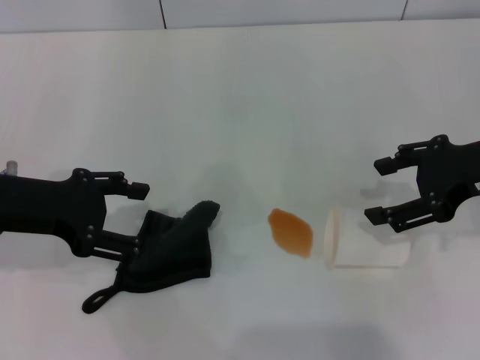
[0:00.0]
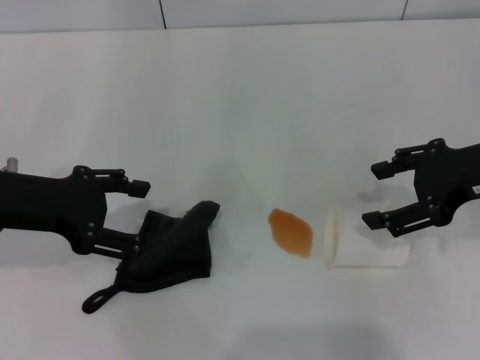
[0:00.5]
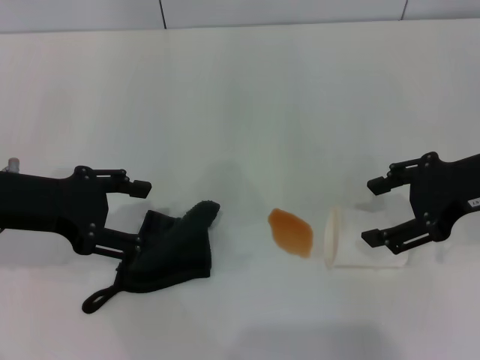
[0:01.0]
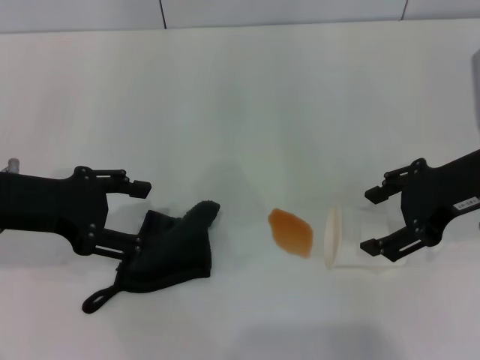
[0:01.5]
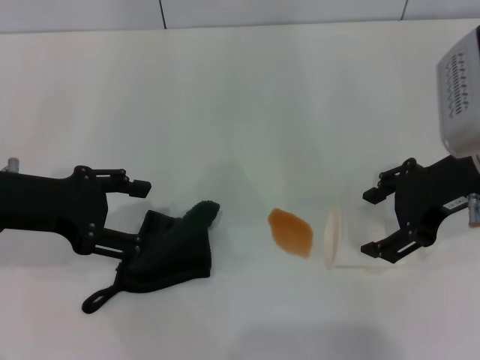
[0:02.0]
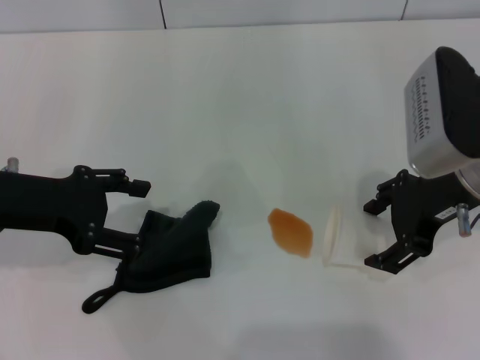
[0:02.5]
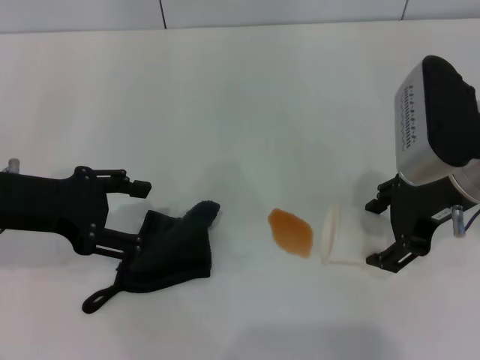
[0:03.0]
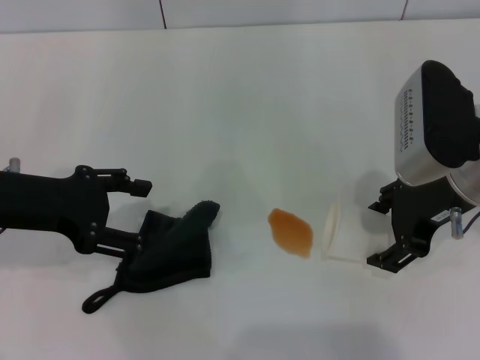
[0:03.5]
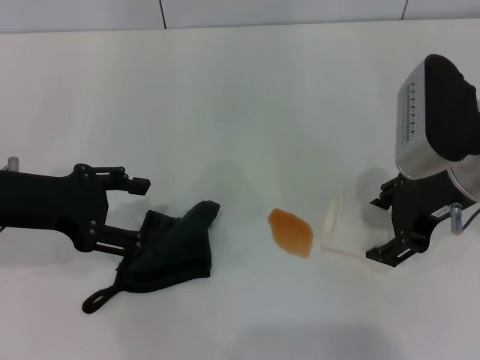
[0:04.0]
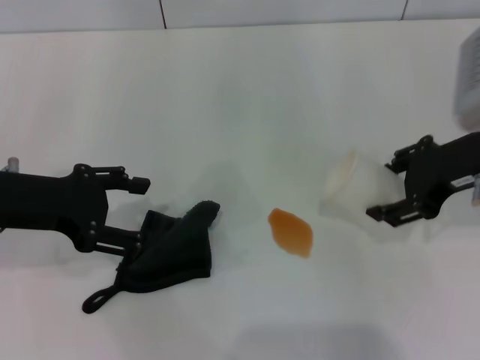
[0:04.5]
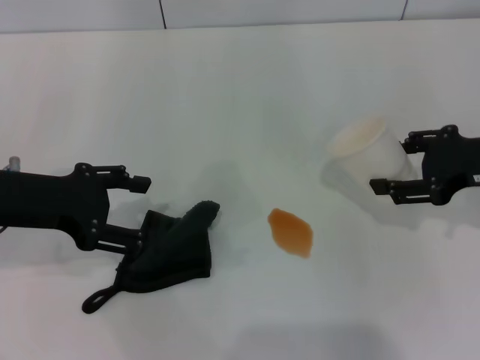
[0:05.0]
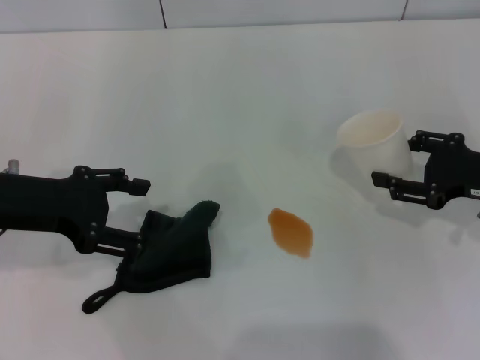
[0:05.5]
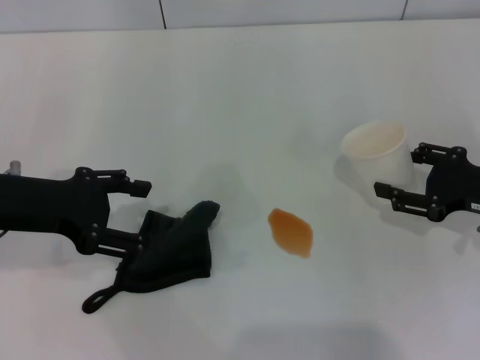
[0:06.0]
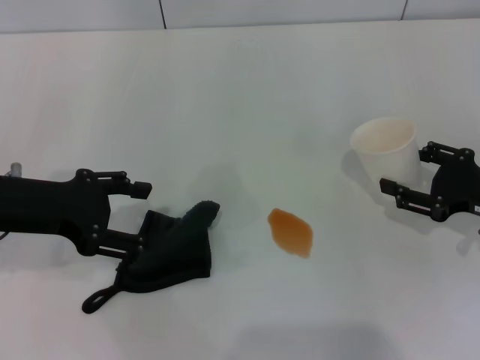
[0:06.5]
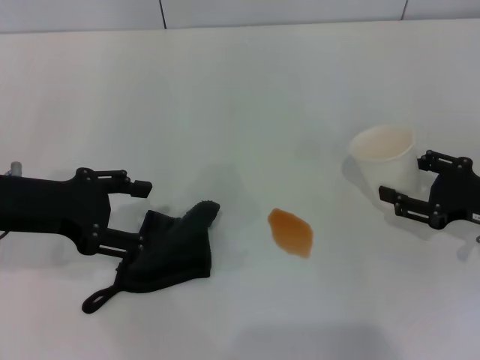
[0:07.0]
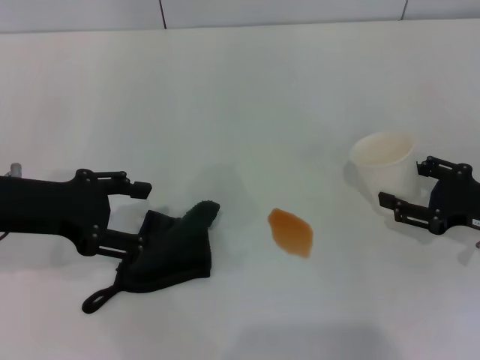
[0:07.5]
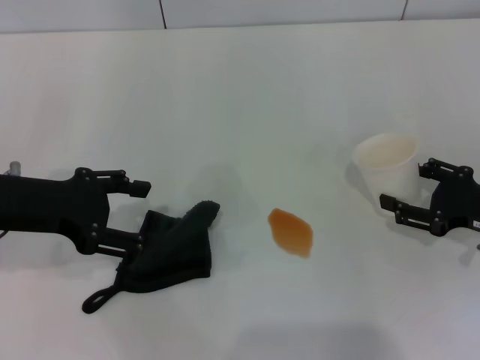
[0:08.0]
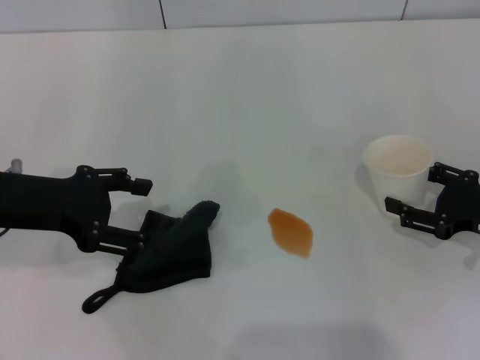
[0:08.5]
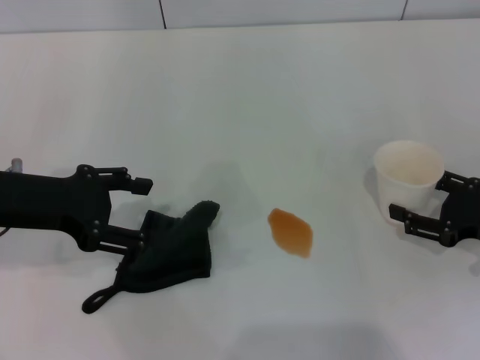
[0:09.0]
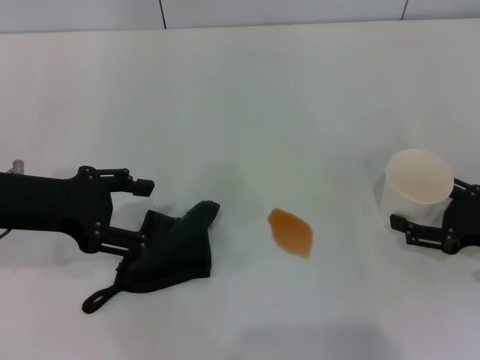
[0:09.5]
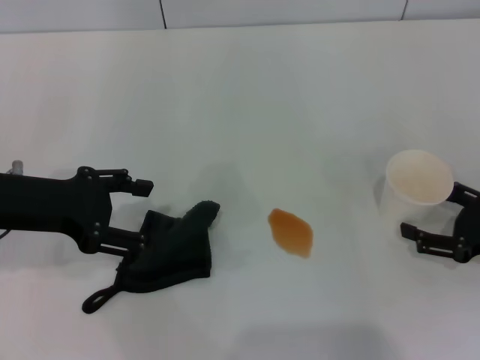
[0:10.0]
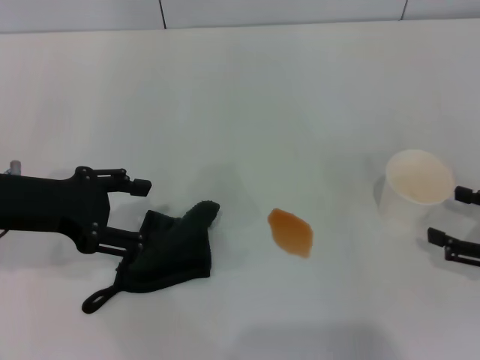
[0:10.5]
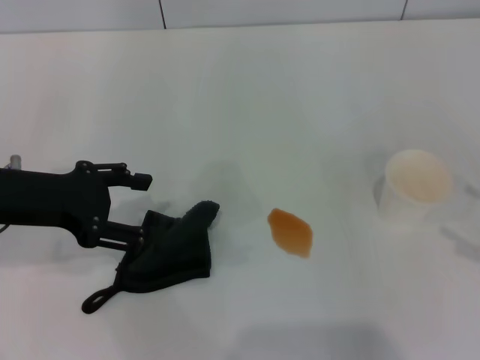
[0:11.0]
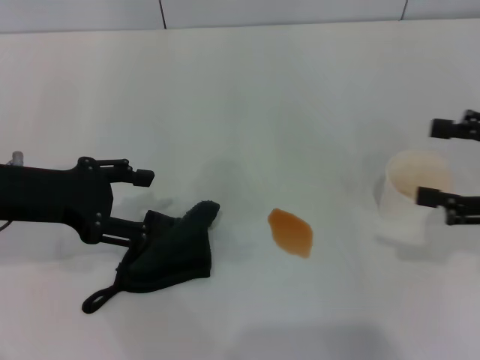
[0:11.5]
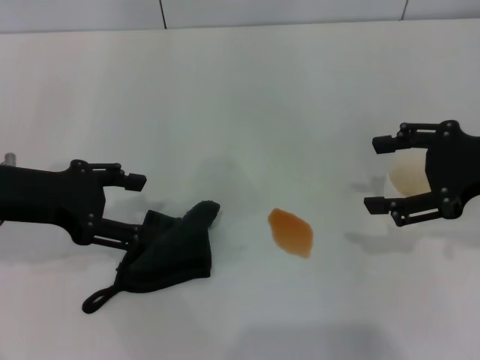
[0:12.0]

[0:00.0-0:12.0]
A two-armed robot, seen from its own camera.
Step, 0:00.0 to 0:04.0: Grasp the paper cup with the right gripper.
Step, 0:04.5 to 0:09.5: Stand the paper cup upright with the right gripper.
0:00.0 to 0:02.0: The right gripper heads to the left, covering approximately 5 cm.
0:02.0 to 0:04.0: The grippers make only small movements.
0:04.0 to 0:06.0: The right gripper travels to the right and downward by about 15 cm, and closes up.
0:06.0 to 0:08.0: The grippers stay close to where they were, moving slightly.
0:08.0 to 0:10.0: The right gripper opens.
0:10.0 to 0:12.0: The right gripper is displaced upward and to the left by some 15 cm.

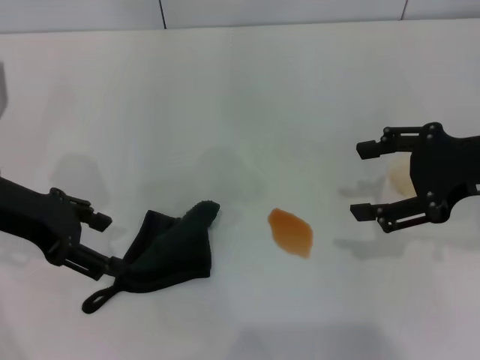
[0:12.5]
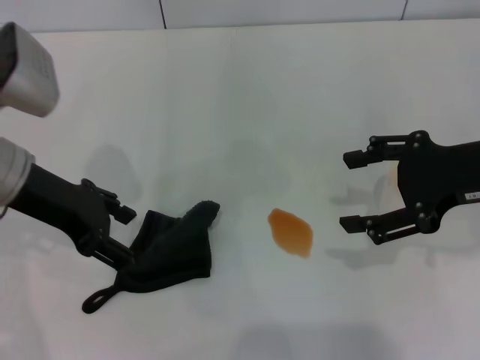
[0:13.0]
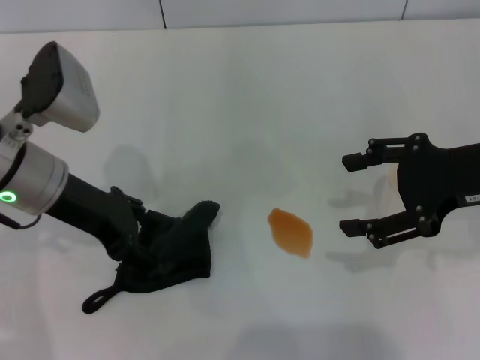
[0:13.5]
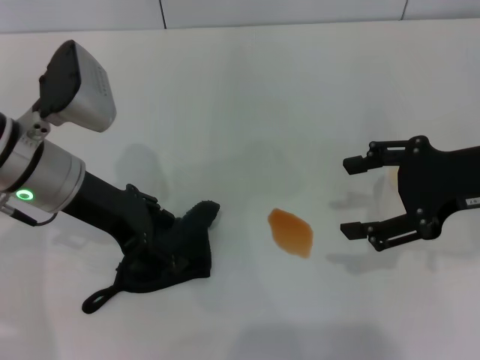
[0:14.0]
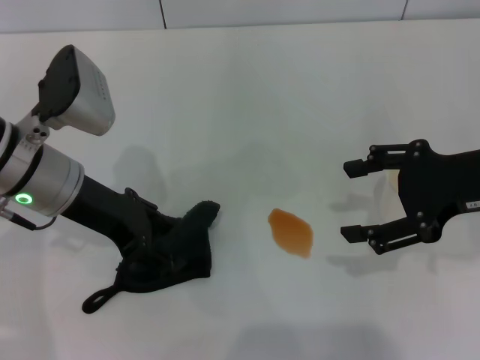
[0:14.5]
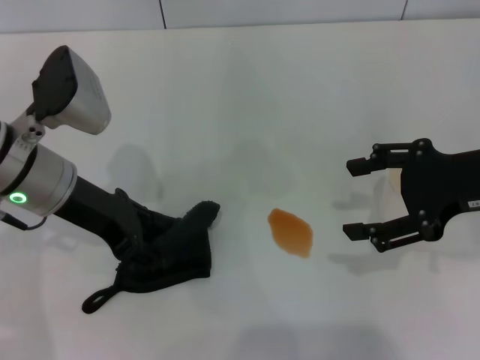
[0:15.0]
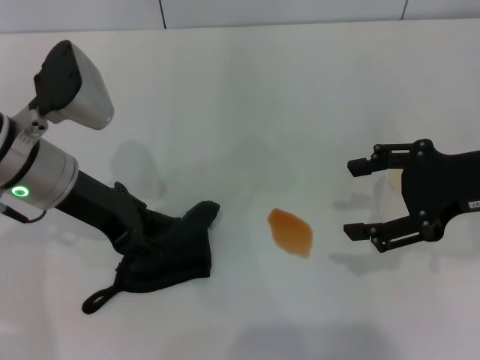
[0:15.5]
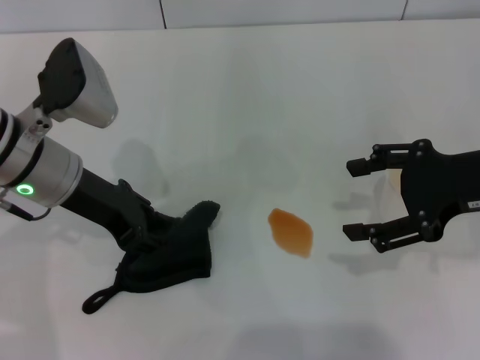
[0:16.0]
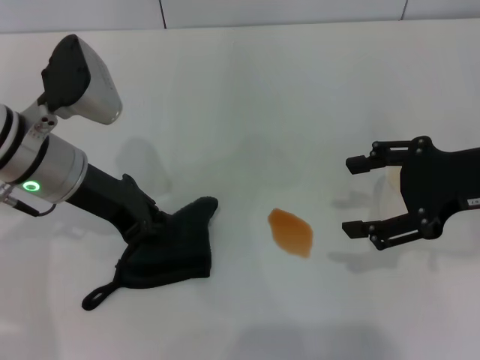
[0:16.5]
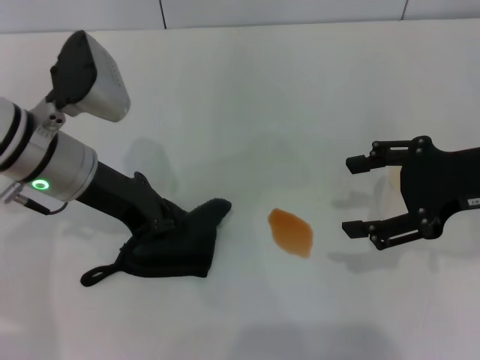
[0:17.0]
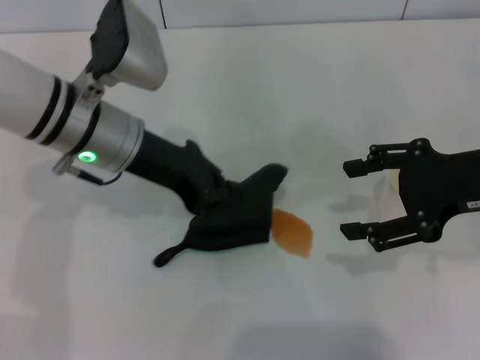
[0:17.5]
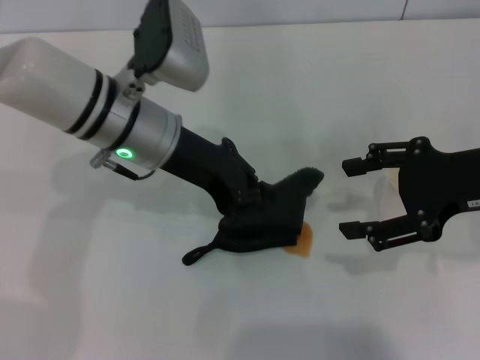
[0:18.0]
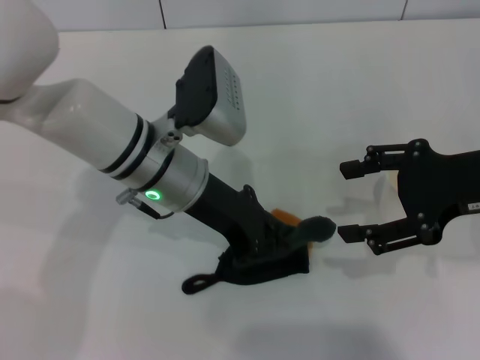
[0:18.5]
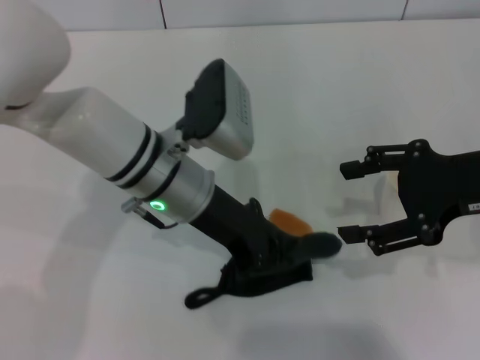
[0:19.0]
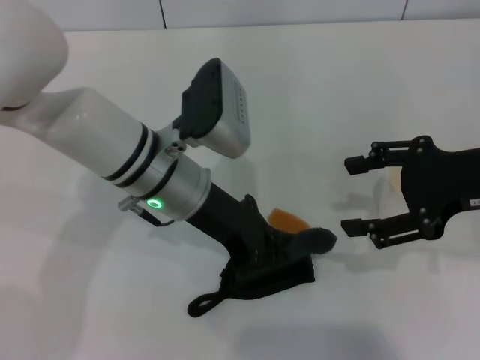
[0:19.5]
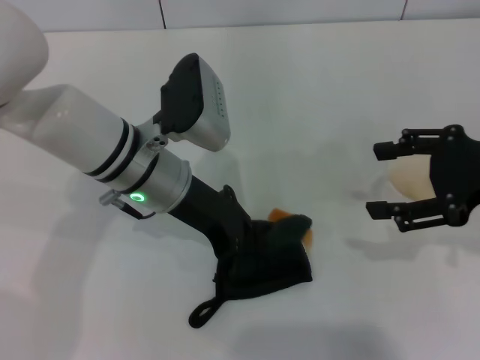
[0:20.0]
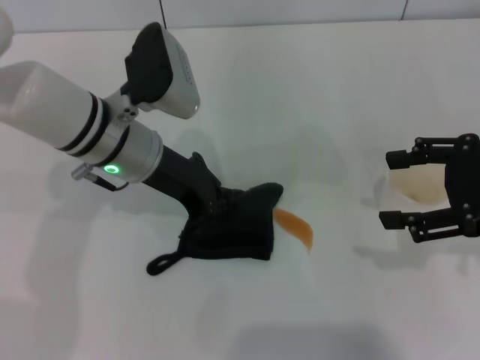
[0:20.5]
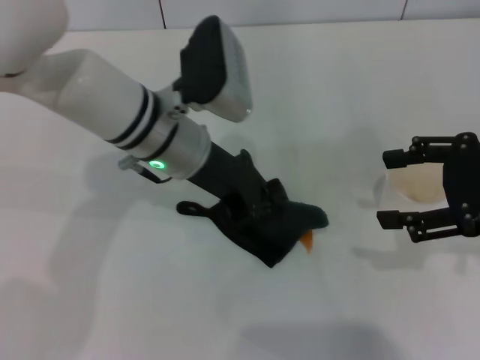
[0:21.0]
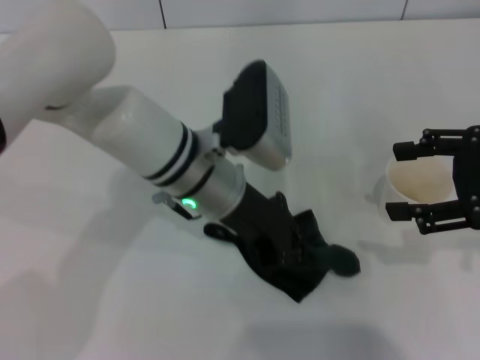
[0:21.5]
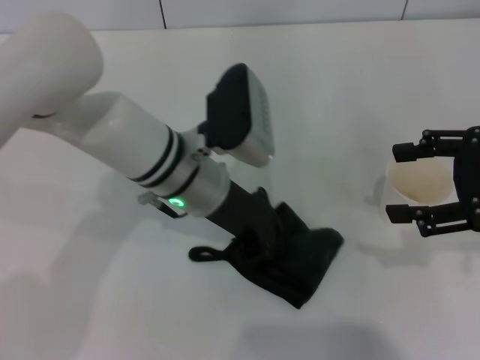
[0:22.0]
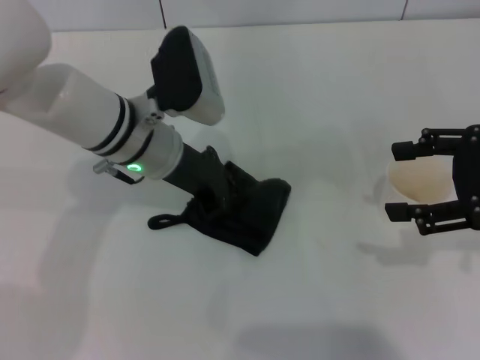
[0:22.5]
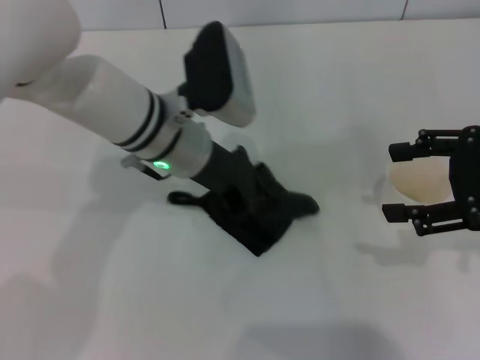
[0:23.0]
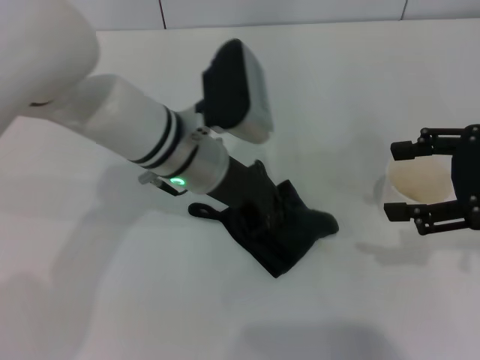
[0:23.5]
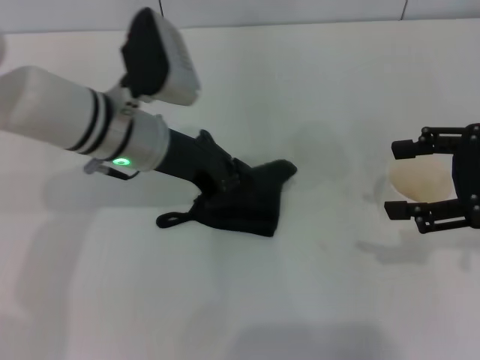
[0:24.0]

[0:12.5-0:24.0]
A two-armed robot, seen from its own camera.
Step, 0:12.5 to 0:16.5: Grasp the rag with the left gripper.
Step, 0:17.0 to 0:23.5: Wipe the stains off the table with the left gripper.
0:12.5 to 0:14.5: The left gripper is displaced to the right by about 5 cm.
0:14.5 to 0:16.5: The left gripper closes its fingers.
0:16.5 to 0:18.5: The left gripper travels to the right by about 10 cm, and closes.
0:18.5 to 0:20.0: The grippers stay close to where they were, moving slightly.
0:22.0 to 0:24.0: The left gripper moves left and right over roughly 5 cm, changing direction 2 times.

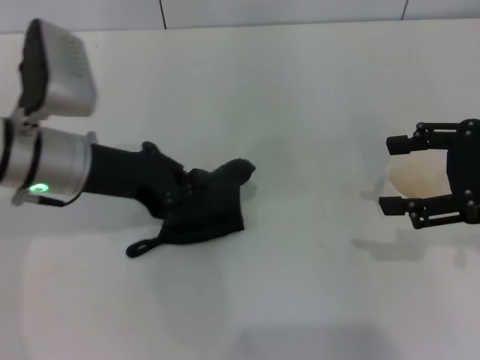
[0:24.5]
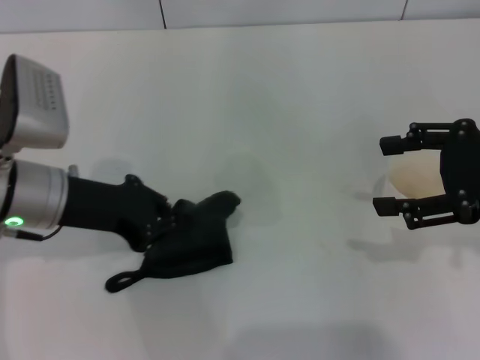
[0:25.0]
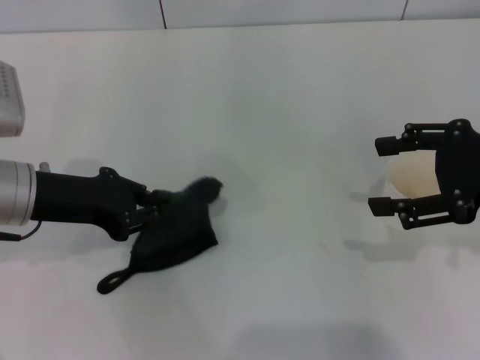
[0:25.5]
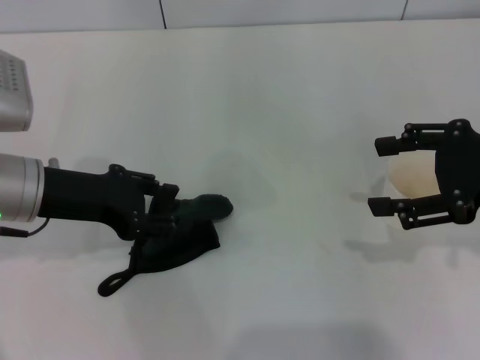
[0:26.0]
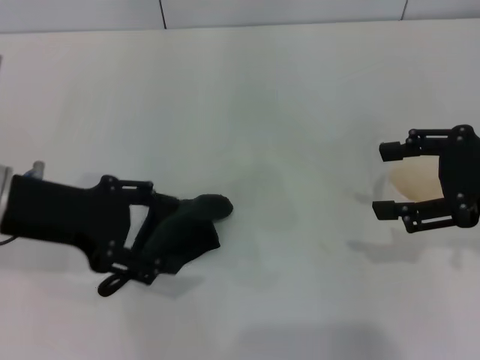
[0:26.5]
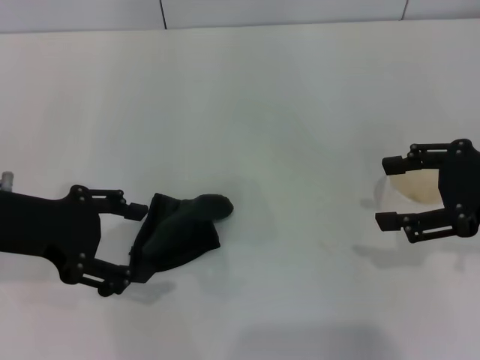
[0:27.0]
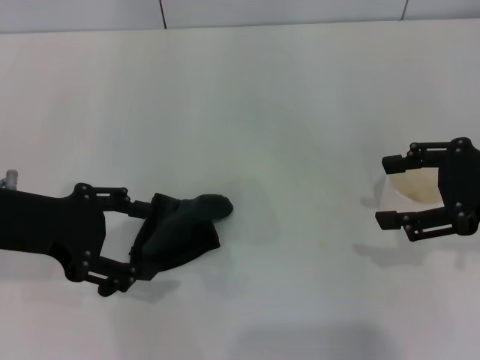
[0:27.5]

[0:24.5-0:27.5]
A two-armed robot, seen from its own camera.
Step, 0:24.5 to 0:26.0: Place the rag on the table with the left gripper.
0:24.5 to 0:26.0: The left gripper opens its fingers.
0:26.0 to 0:27.5: The left gripper shifts by approximately 5 cm, and opens.
